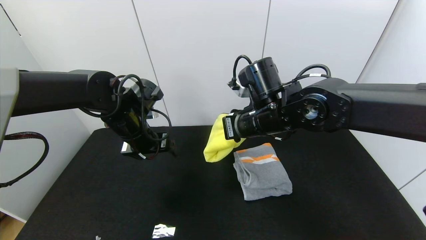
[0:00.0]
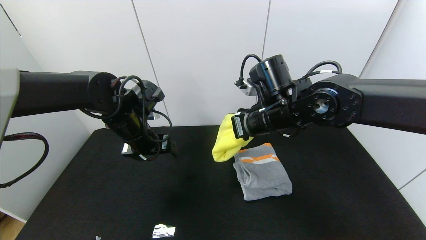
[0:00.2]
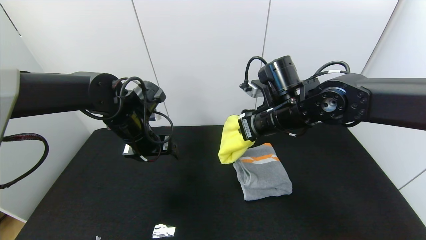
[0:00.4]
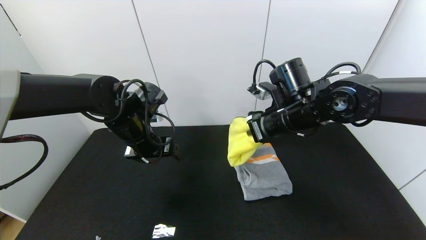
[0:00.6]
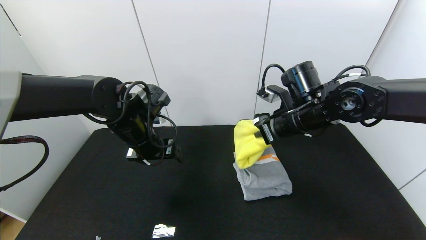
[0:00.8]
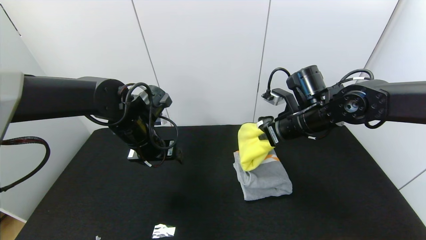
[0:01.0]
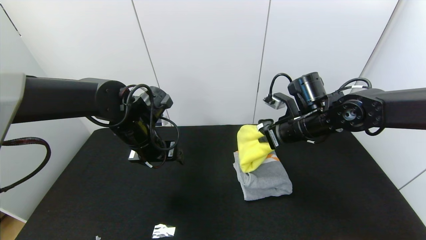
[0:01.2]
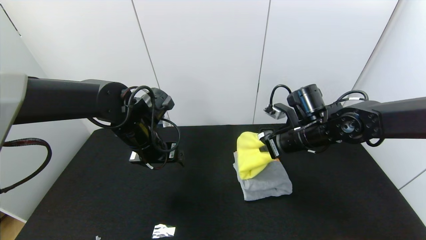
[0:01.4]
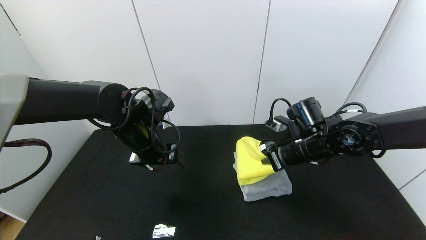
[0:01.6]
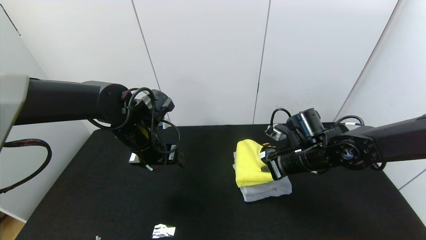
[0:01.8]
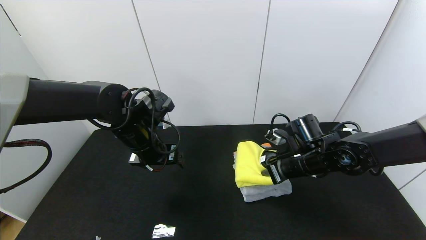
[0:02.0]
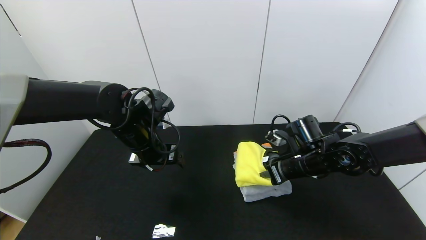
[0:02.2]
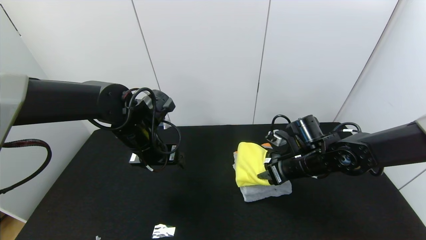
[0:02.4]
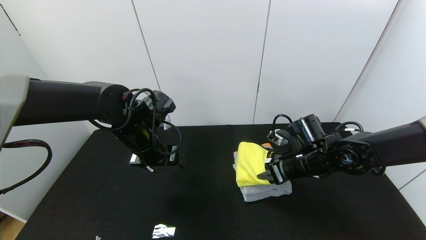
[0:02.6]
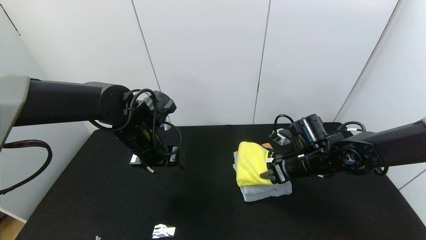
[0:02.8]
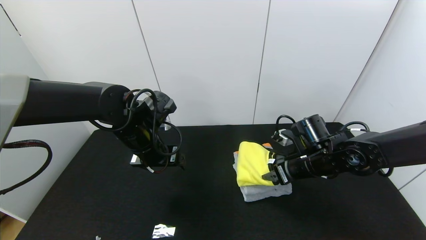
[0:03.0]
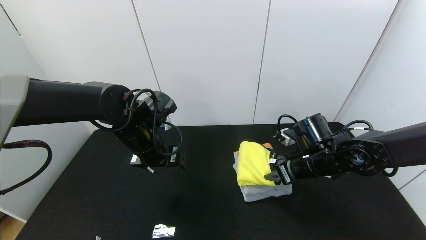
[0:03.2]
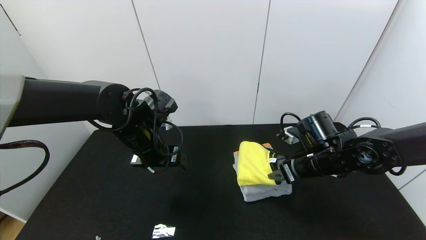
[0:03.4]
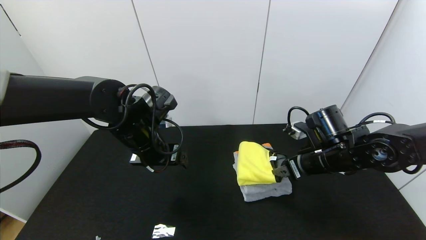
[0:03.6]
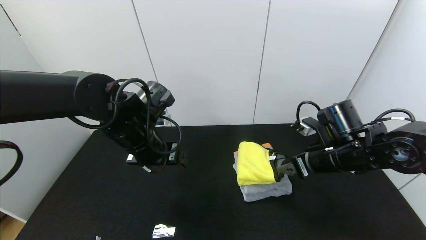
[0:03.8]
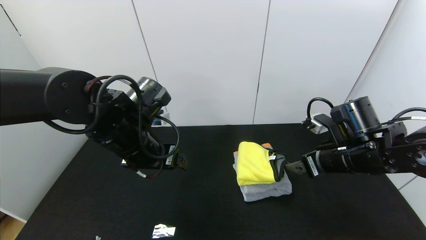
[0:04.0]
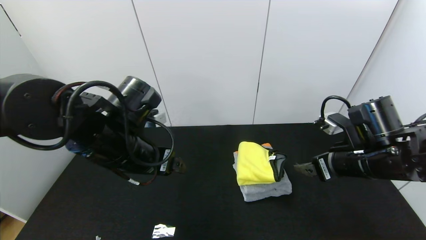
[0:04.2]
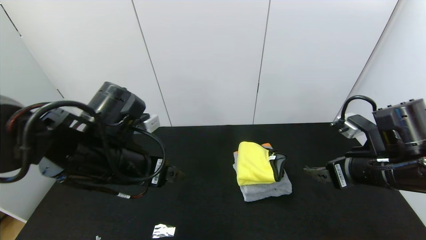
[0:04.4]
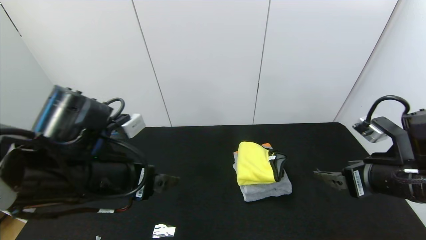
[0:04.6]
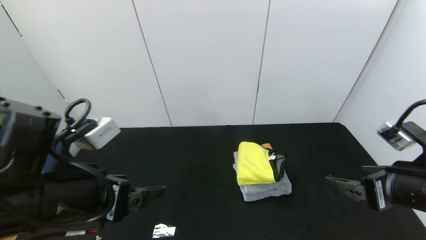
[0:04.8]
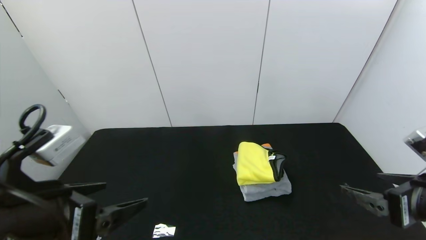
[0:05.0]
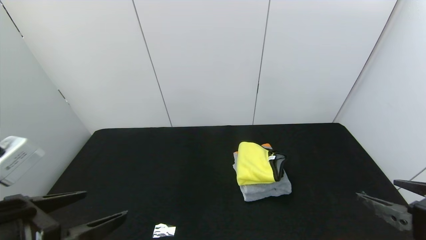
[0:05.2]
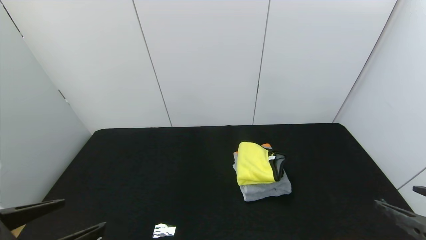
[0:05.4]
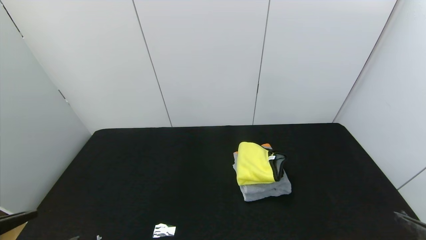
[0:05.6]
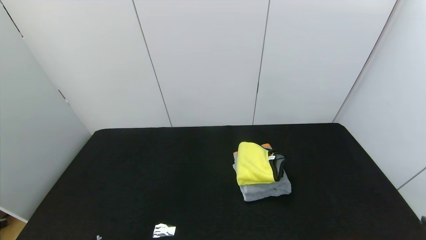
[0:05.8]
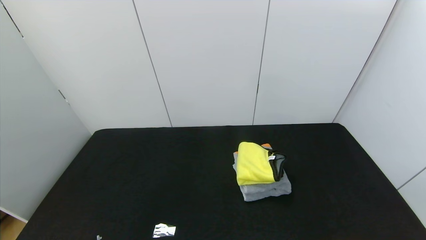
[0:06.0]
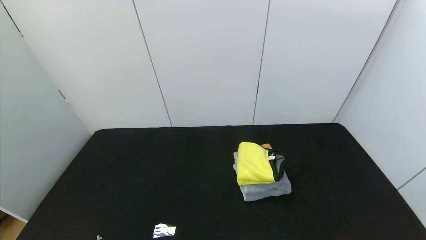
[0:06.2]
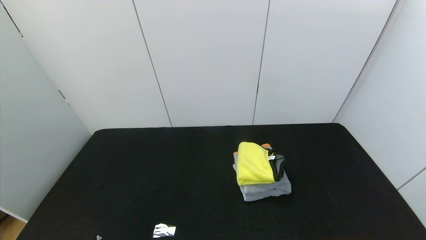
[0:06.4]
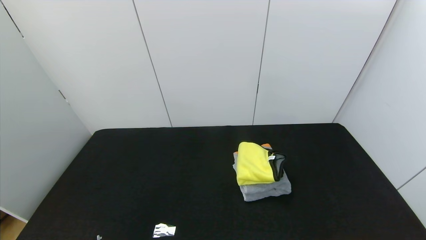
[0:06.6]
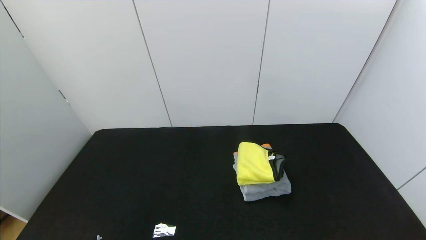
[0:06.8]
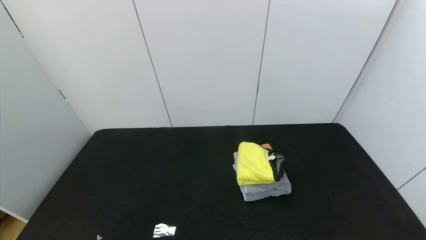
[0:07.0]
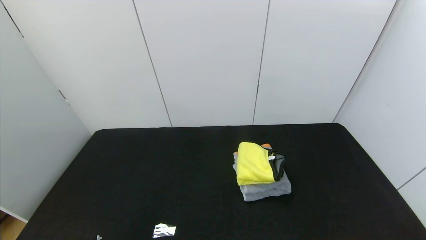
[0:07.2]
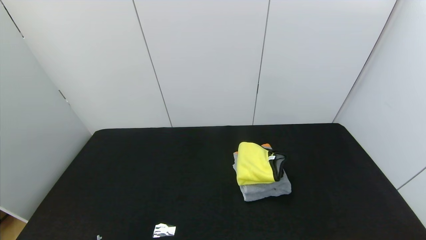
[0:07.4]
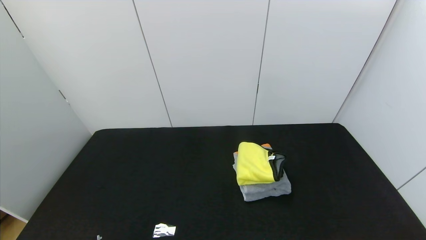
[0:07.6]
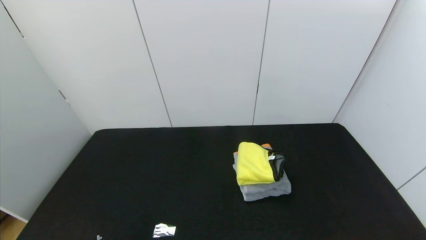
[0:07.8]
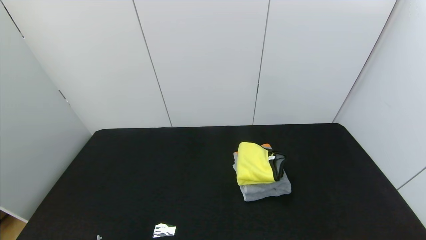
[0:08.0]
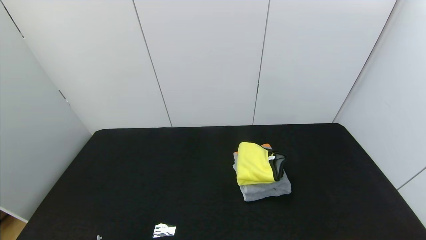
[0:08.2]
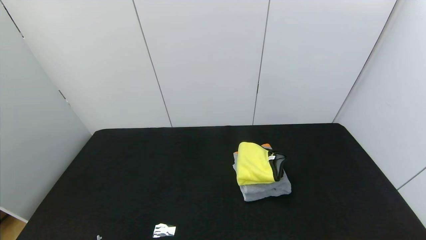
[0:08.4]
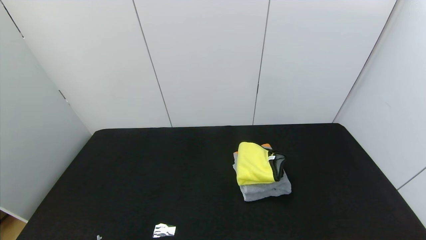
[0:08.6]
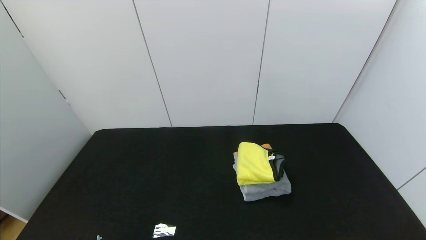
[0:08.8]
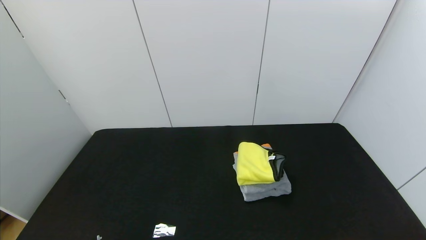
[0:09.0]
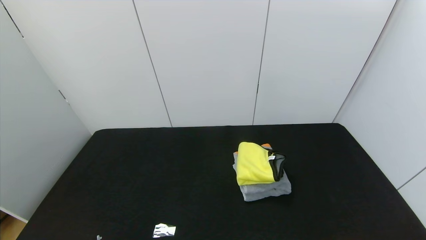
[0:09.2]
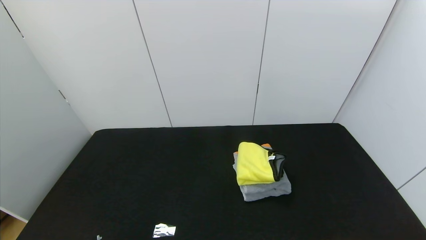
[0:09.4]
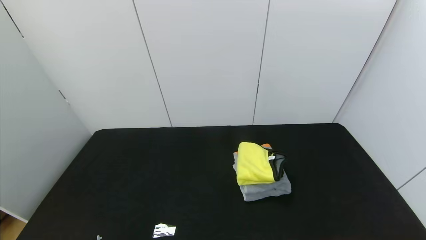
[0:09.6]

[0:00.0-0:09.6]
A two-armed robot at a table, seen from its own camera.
Task of the whole recording: Use the gripper to fold the yellow towel and grey towel in half twice,then put the yellow towel on the grey towel.
Step, 0:00.0 to 0:03.6: Place the yellow towel on the gray towel with the right gripper.
0:00.0 to 0:01.6: The right gripper is displaced to the right and downward by approximately 15 cm.
0:01.6 to 0:03.2: The right gripper opens its fingers.
0:03.2 to 0:04.8: The left gripper is displaced backward by about 20 cm. The right gripper moves backward, to the right and upward, about 20 cm.
0:04.8 to 0:06.4: The right gripper is displaced backward and to the right by some 20 cm, while the left gripper moves backward and to the left, about 20 cm.
